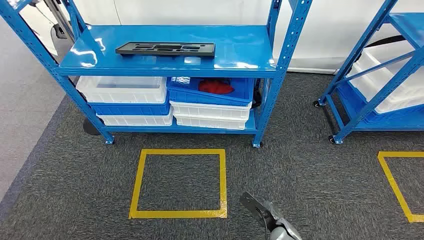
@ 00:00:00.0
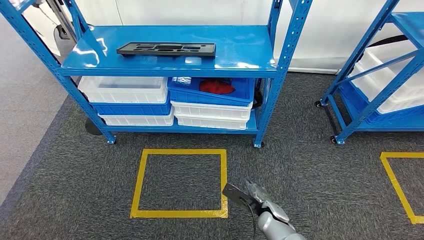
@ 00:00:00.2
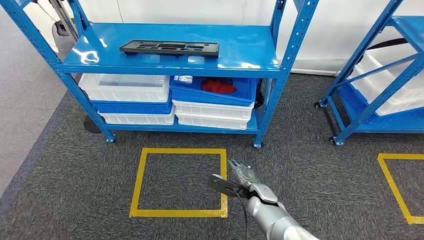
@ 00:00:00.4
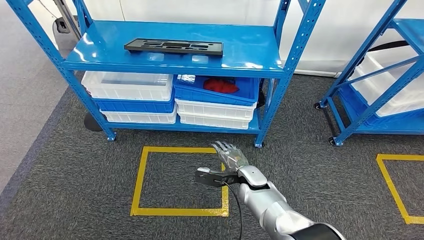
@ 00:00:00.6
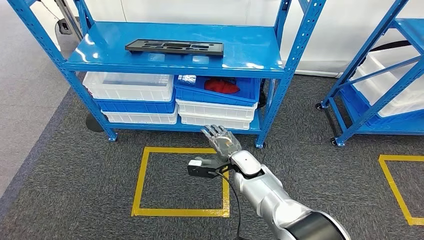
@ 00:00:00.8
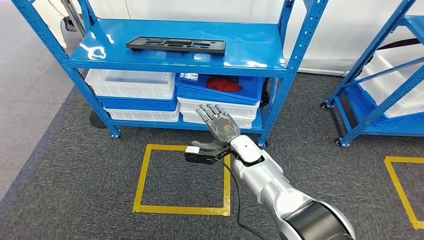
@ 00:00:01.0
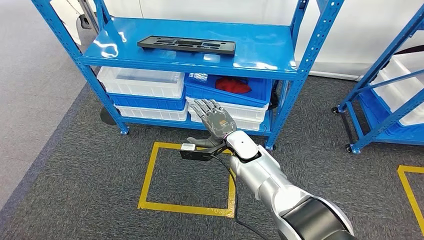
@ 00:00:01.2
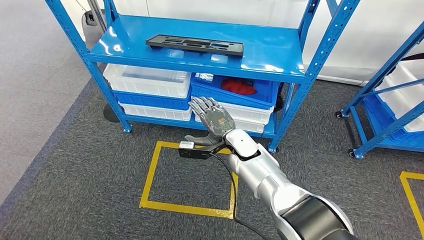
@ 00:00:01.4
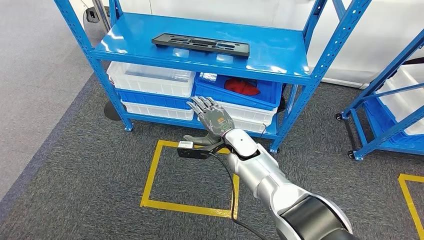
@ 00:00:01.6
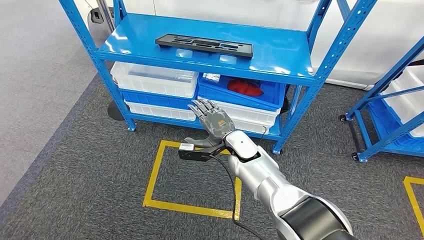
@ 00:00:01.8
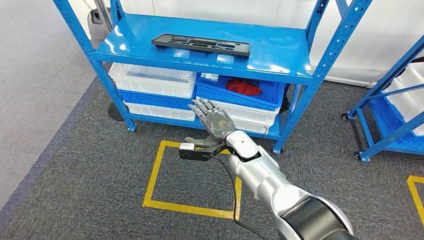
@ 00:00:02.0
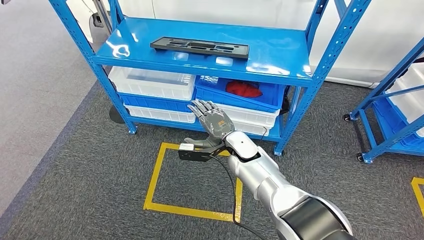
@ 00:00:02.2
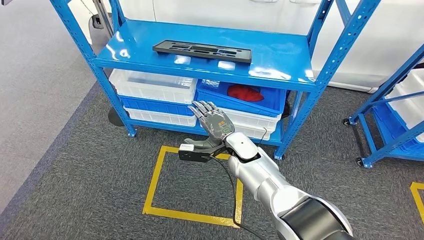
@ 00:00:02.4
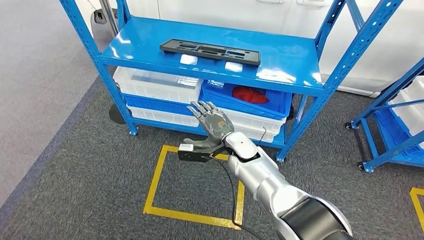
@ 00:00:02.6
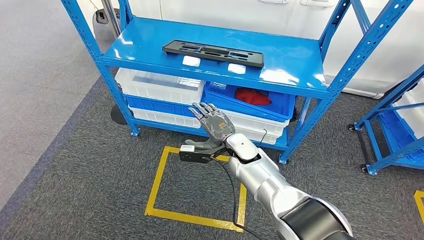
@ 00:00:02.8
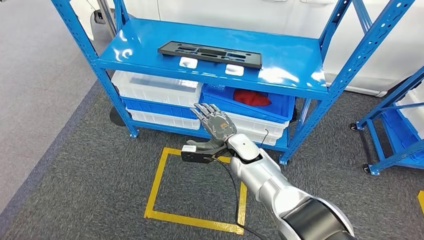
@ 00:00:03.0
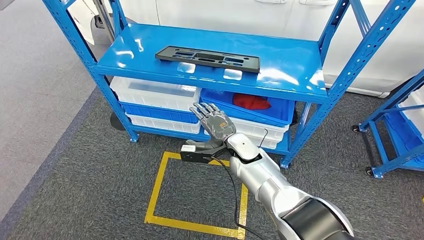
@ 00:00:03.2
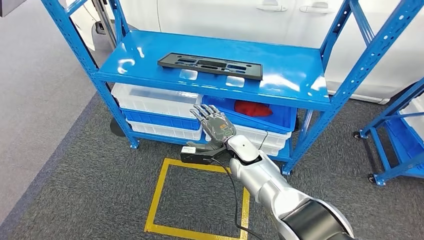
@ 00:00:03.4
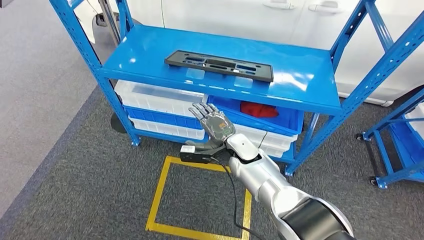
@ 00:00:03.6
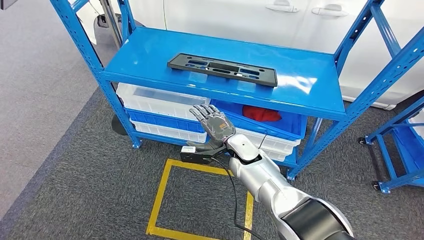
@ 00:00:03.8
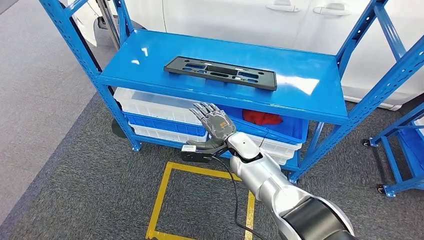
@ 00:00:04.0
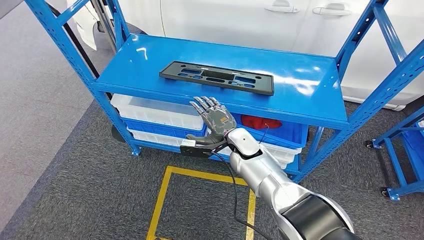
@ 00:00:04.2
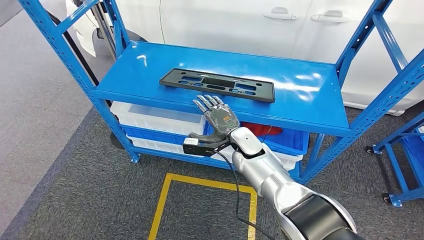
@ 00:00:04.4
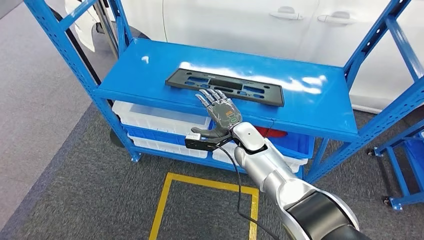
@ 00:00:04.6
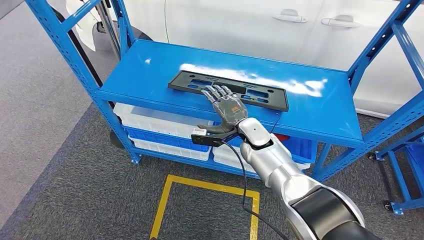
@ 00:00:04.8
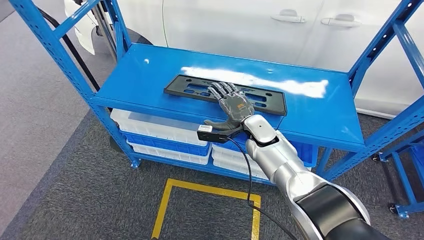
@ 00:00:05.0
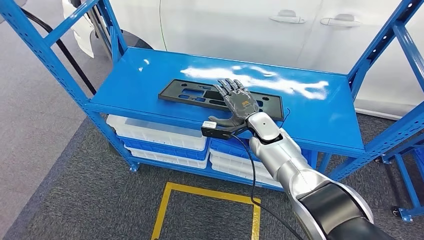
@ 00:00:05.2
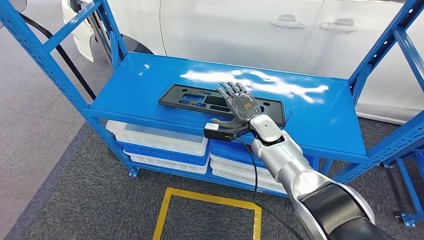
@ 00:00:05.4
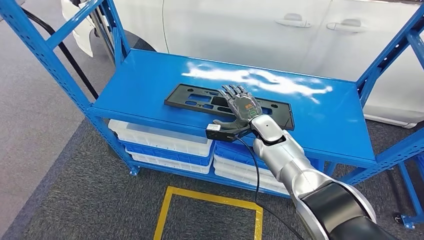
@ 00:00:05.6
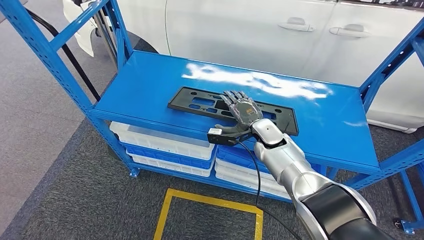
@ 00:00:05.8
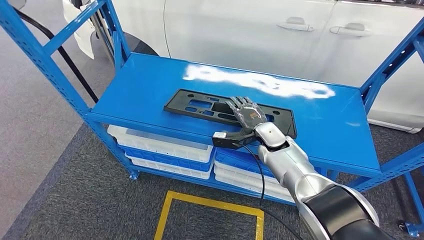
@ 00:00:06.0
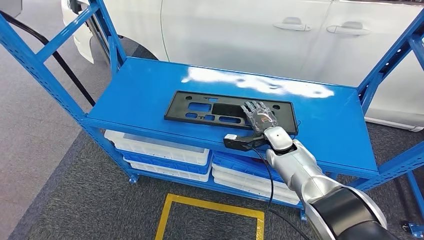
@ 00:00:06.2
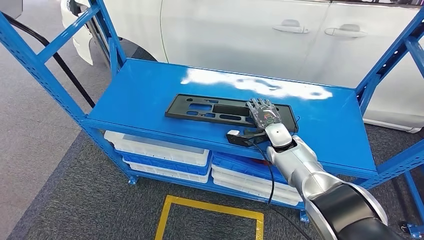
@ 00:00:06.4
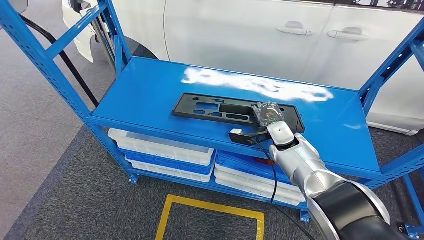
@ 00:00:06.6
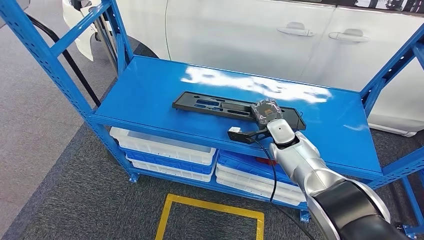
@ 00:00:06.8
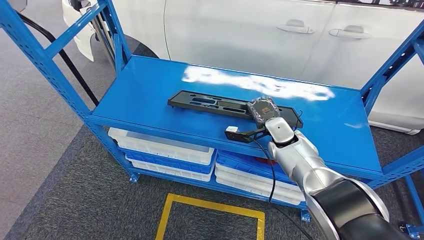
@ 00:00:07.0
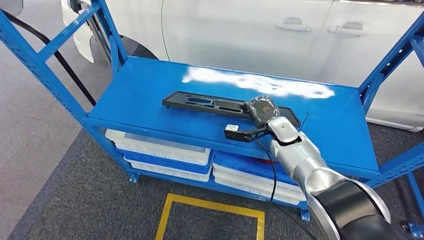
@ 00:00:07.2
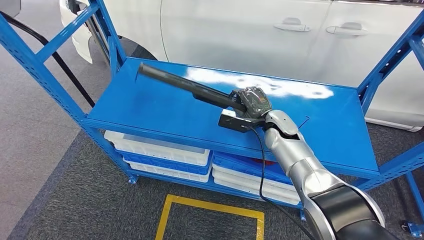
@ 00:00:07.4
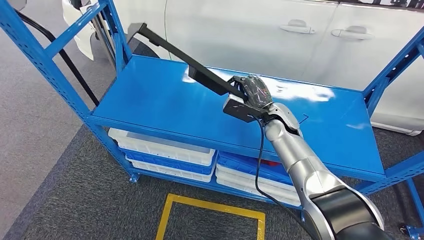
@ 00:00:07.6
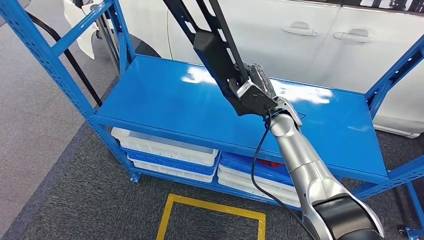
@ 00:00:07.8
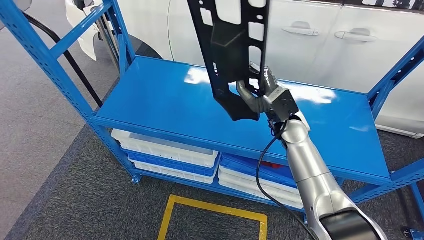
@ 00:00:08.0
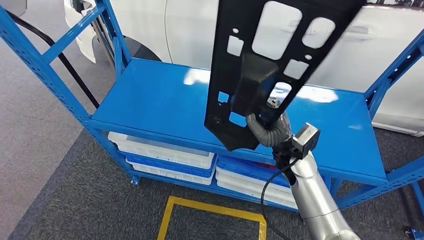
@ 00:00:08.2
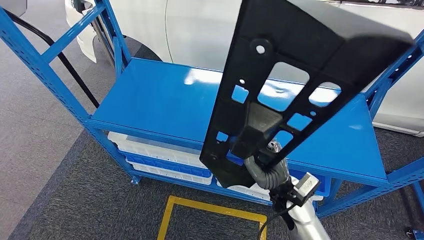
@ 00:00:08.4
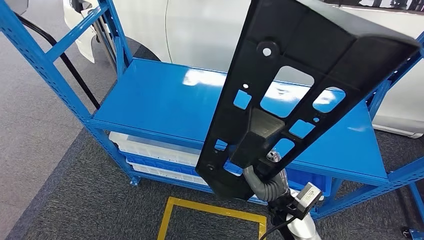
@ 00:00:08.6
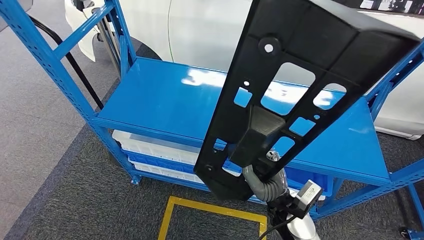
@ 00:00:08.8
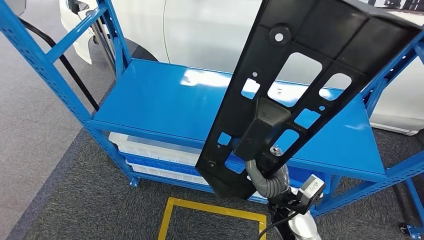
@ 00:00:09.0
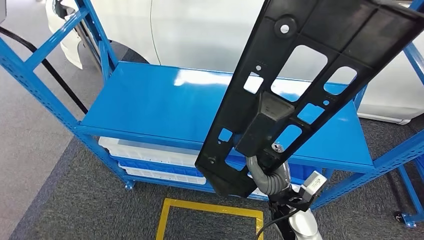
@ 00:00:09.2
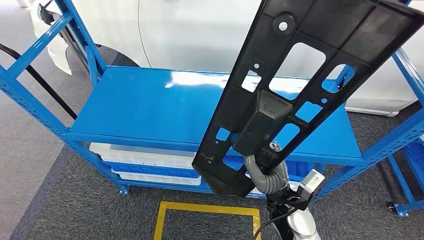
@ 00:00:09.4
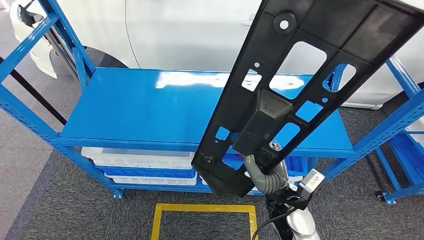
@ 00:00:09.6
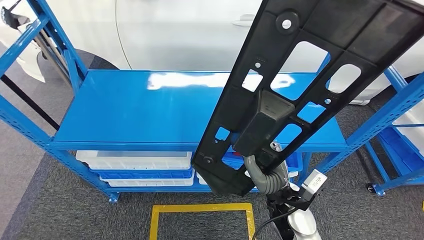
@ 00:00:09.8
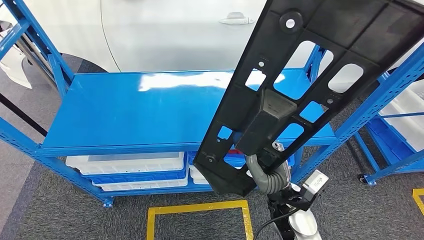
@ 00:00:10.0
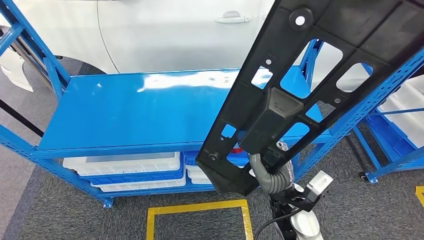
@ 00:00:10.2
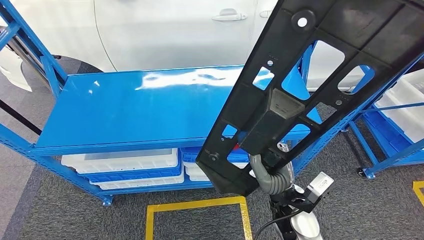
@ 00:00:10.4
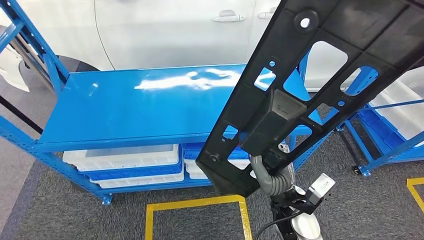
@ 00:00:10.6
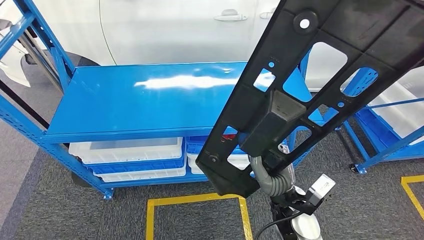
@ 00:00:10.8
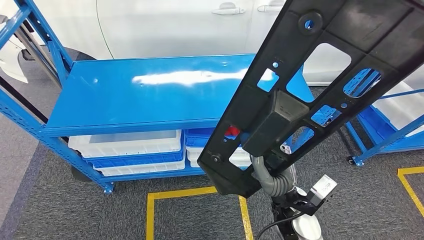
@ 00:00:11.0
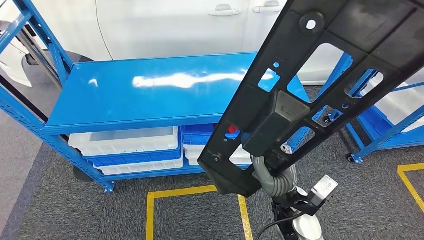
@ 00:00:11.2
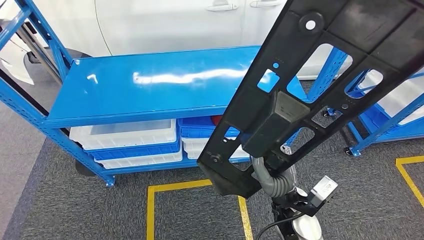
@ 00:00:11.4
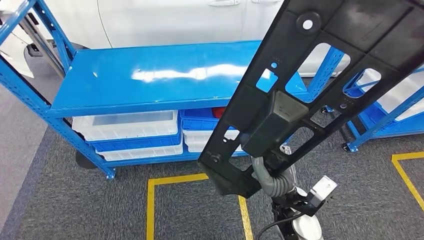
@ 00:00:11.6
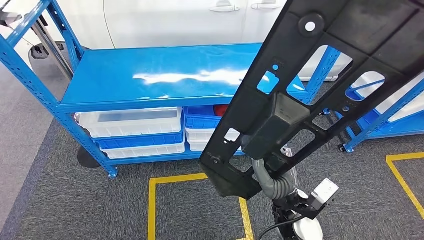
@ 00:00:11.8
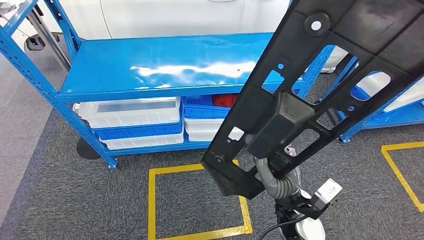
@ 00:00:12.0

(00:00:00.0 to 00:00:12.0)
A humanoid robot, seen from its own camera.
Step, 00:00:00.0 - 00:00:08.2: Pick up the large material from the shelf.

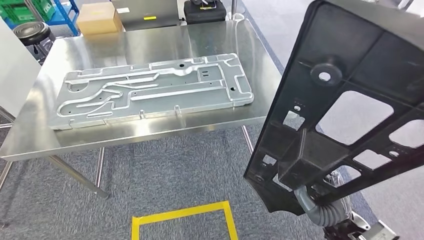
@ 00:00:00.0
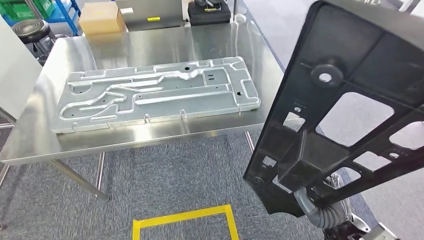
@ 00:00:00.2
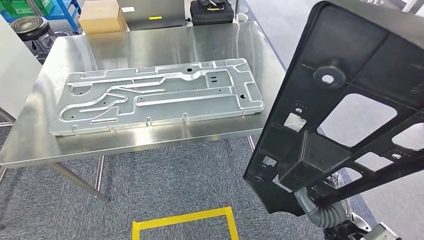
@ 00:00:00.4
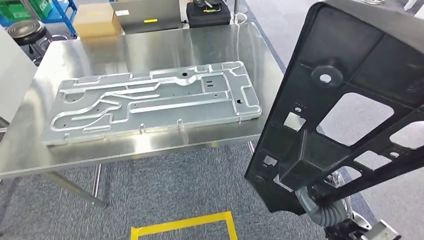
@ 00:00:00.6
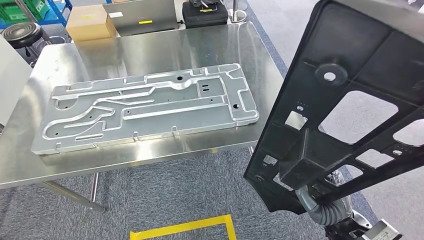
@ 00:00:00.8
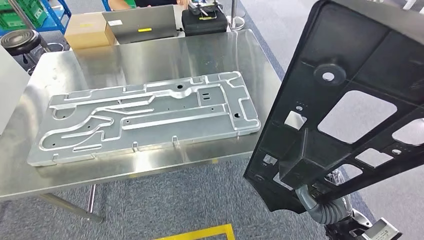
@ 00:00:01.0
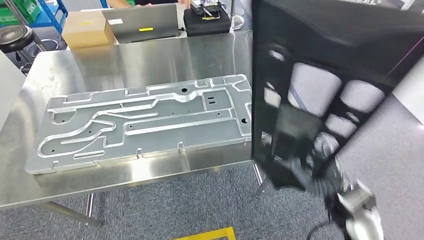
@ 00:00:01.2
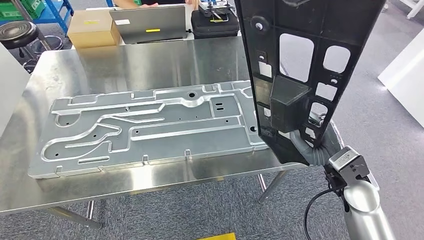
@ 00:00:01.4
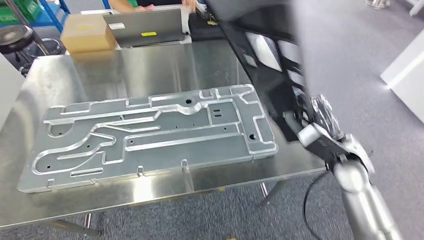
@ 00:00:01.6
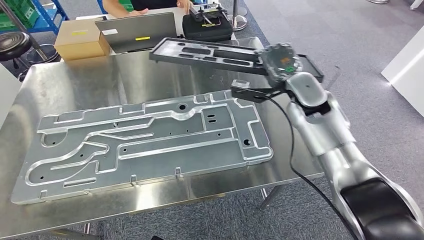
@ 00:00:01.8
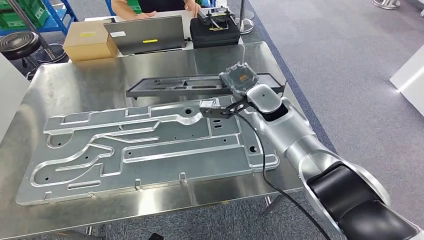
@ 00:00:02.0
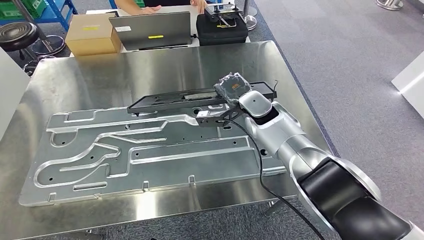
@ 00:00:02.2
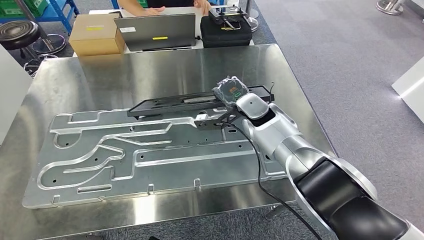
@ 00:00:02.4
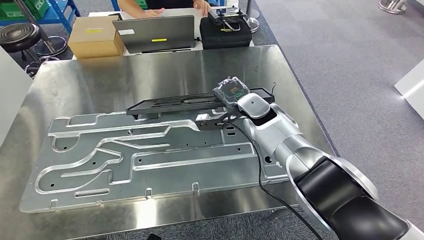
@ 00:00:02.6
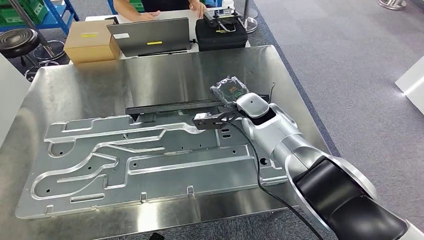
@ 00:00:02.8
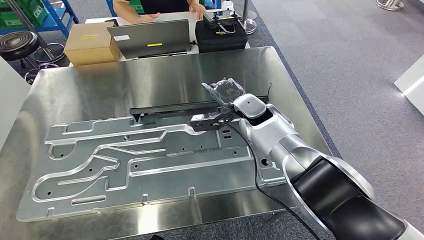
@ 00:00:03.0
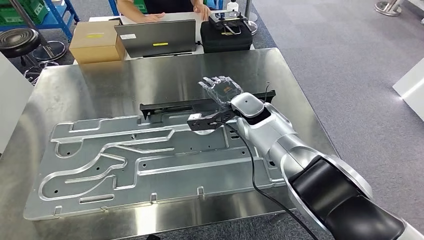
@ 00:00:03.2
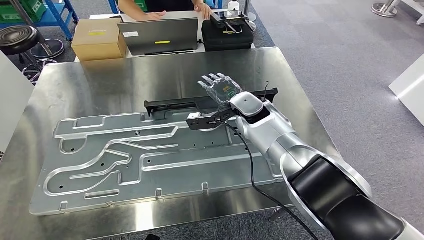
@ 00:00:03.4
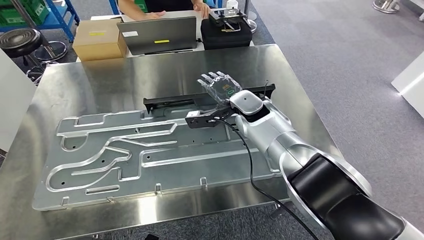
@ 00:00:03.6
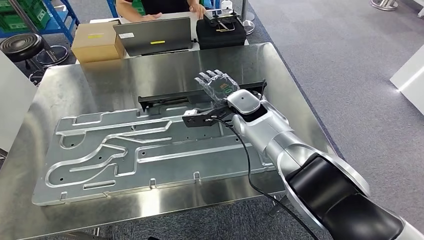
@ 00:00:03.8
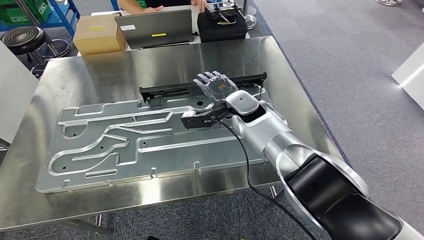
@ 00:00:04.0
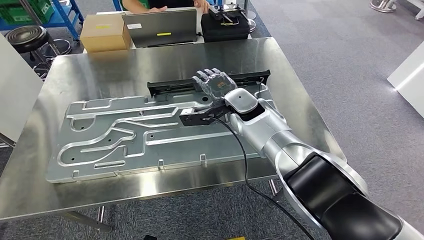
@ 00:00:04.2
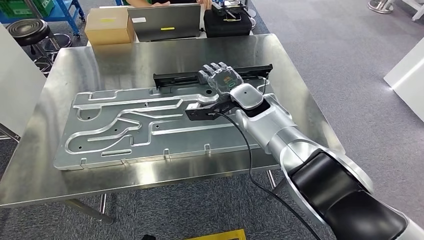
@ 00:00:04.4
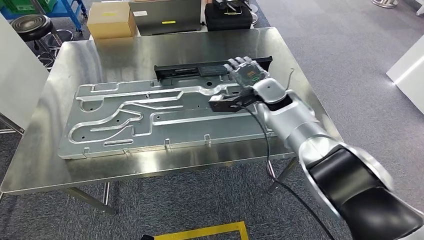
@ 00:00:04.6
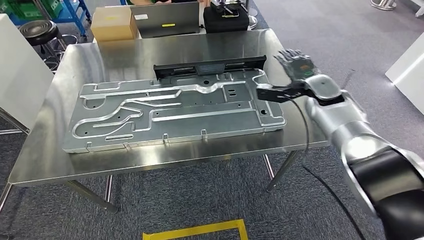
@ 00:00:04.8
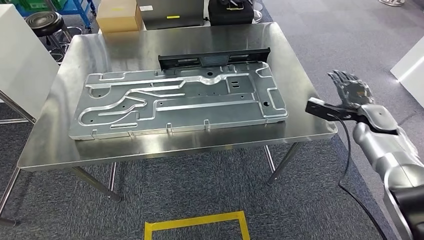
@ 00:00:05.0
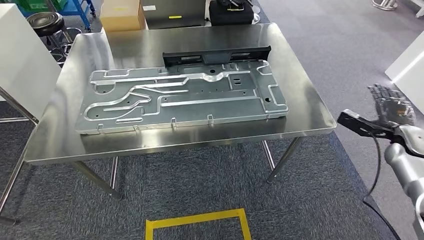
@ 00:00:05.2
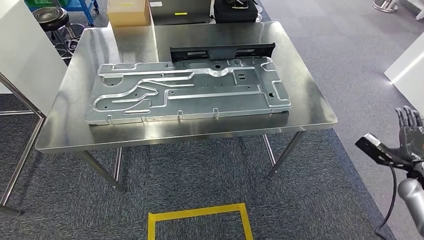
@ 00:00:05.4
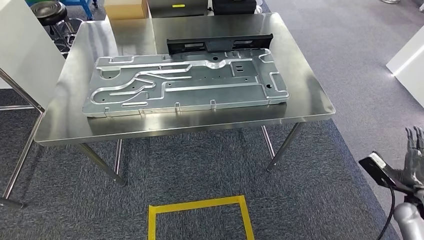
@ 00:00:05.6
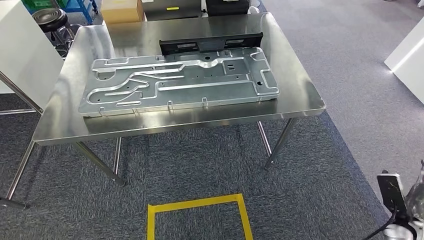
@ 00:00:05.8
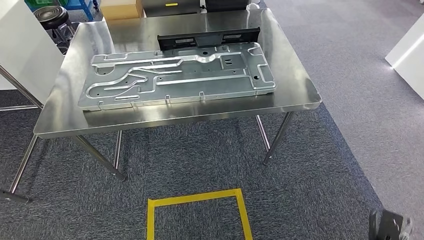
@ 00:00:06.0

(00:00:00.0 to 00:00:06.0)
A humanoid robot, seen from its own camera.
Step, 00:00:03.0 - 00:00:03.8: Insert the large material into the corresponding slot on the workbench.
